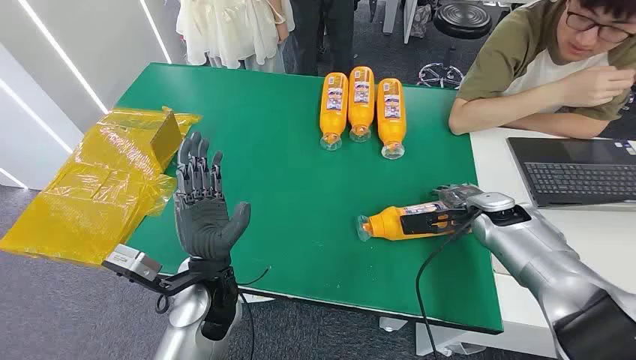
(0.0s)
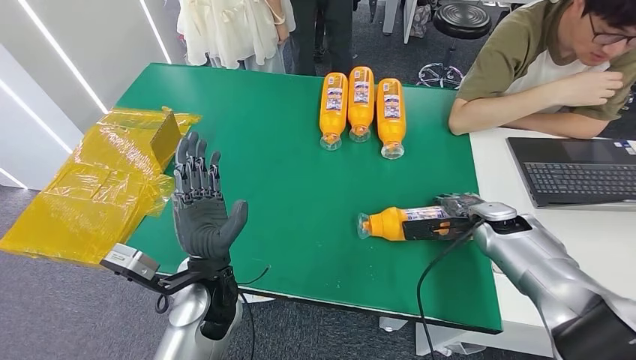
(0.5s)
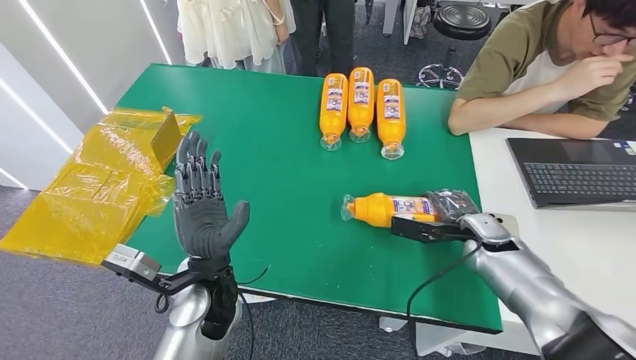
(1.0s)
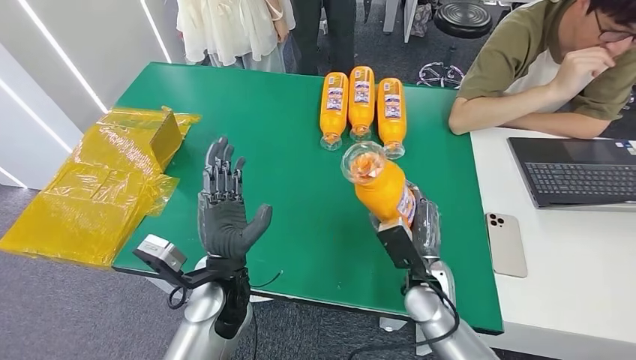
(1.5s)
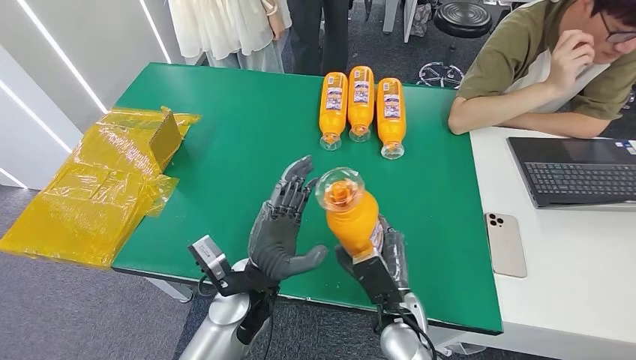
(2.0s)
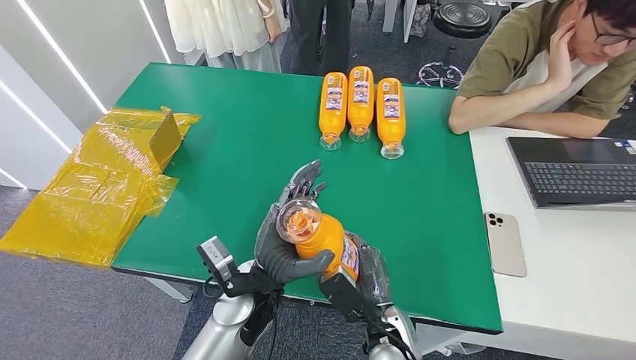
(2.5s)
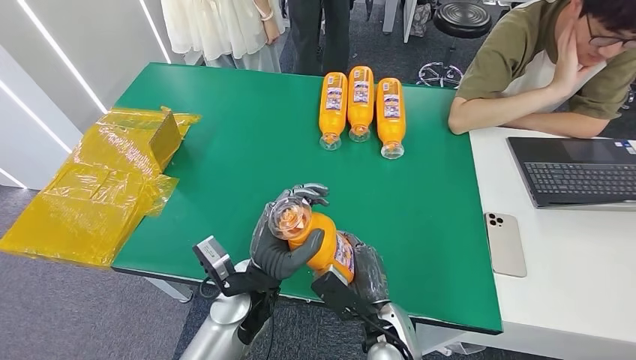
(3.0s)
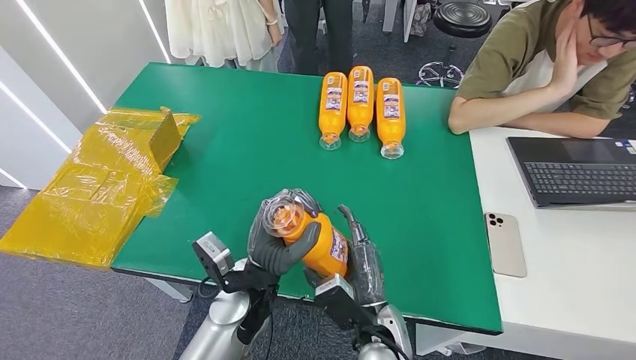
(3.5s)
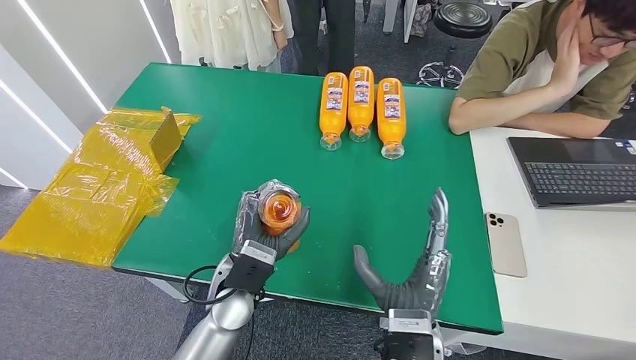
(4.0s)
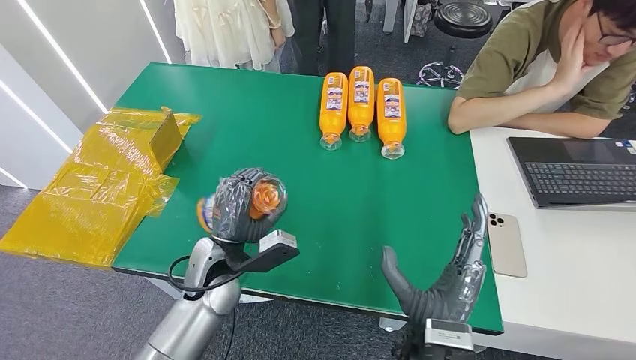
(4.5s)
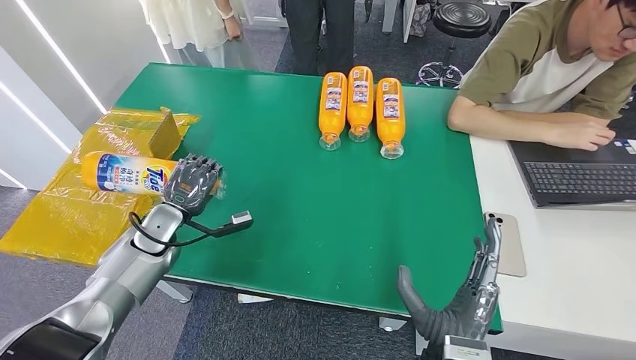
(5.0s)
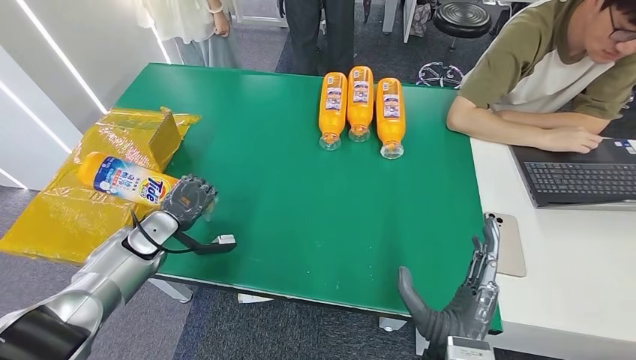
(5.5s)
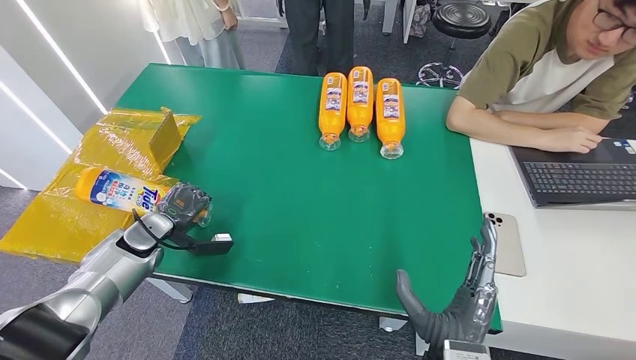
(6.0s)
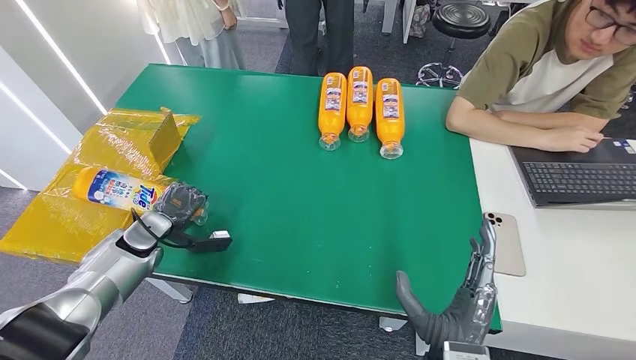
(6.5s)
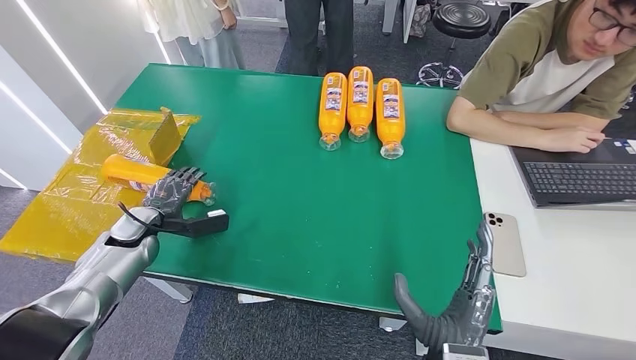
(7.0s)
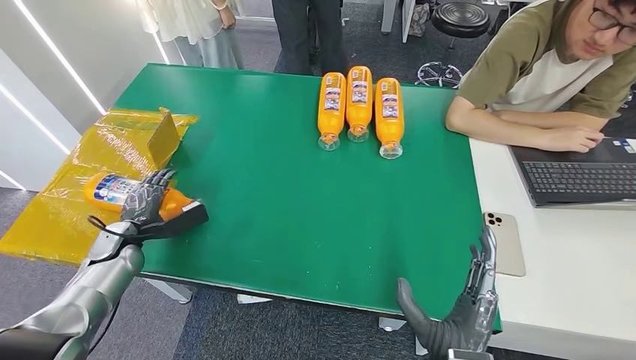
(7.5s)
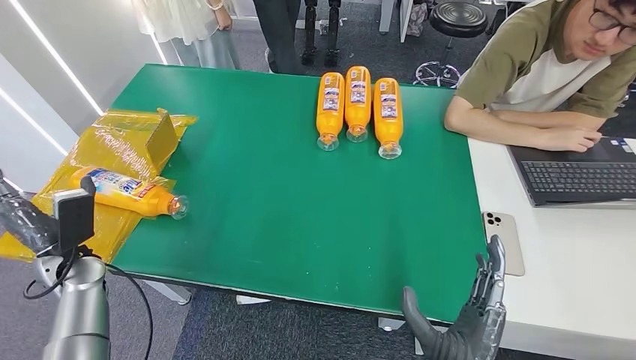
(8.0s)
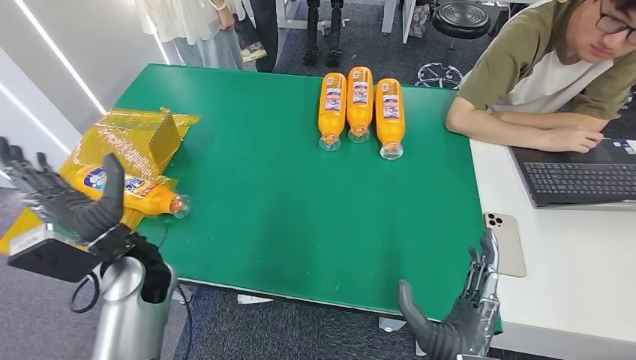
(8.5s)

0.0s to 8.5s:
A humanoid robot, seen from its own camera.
Step, 0.0s to 3.0s: Pick up the bottle from the table.
Step, 3.5s to 8.5s: Turn the bottle to the front side.
2.0s to 4.0s: The right hand shifts approximately 10 cm backward and upward.
6.5s to 8.5s: The left hand heads to the right, upward and backward, covering some 15 cm.
